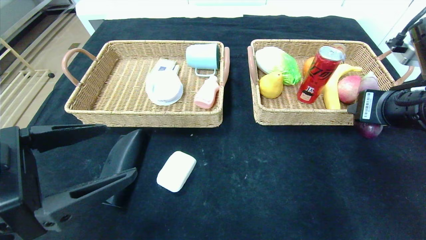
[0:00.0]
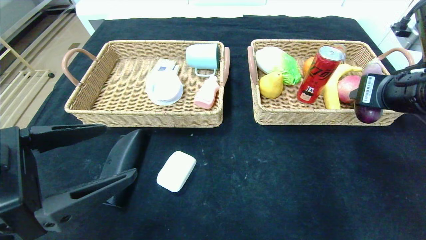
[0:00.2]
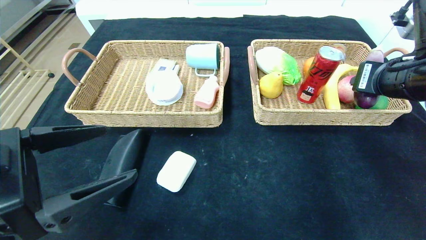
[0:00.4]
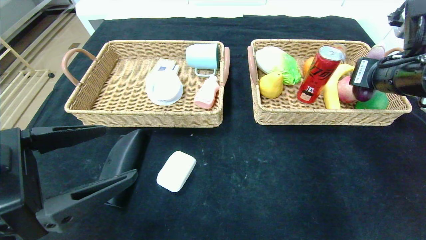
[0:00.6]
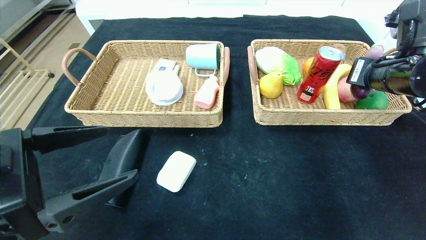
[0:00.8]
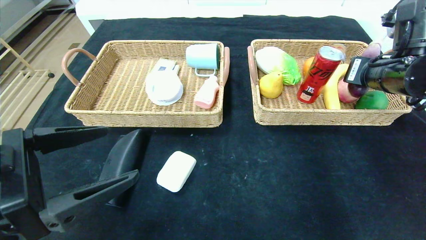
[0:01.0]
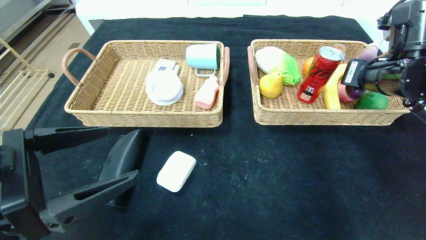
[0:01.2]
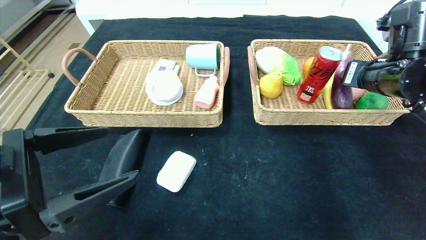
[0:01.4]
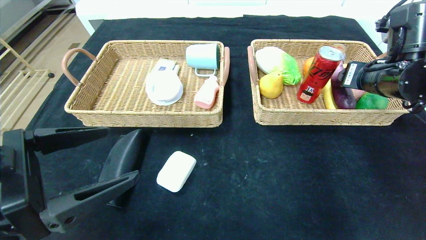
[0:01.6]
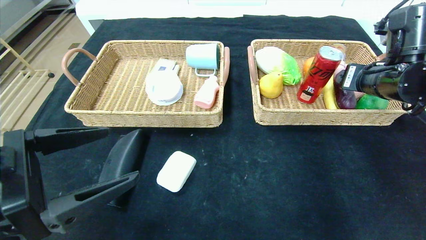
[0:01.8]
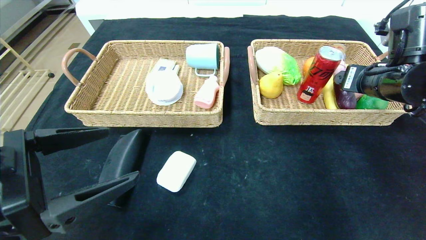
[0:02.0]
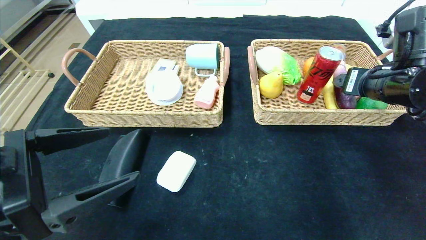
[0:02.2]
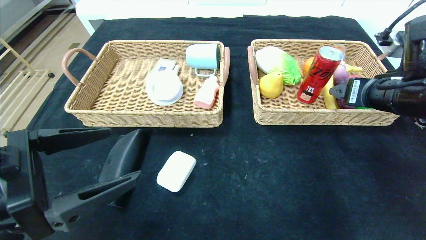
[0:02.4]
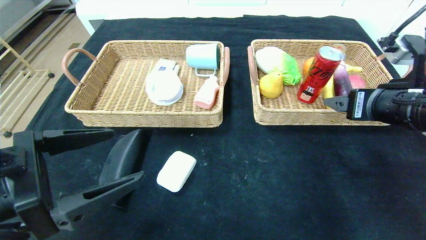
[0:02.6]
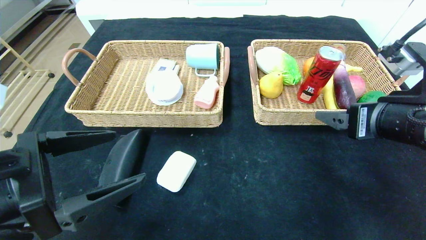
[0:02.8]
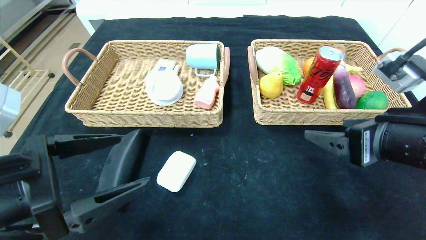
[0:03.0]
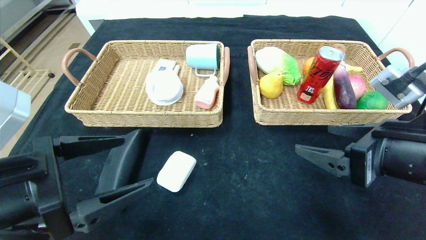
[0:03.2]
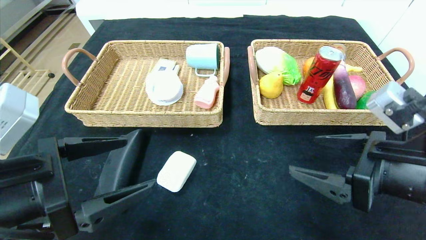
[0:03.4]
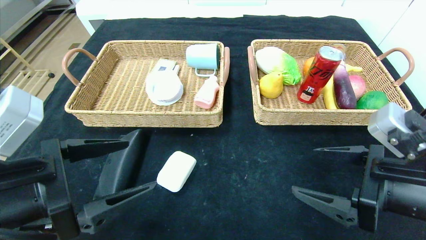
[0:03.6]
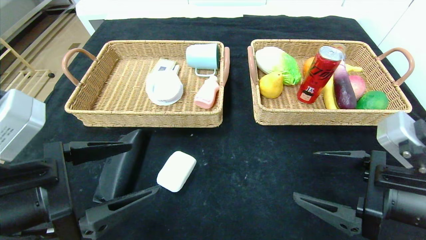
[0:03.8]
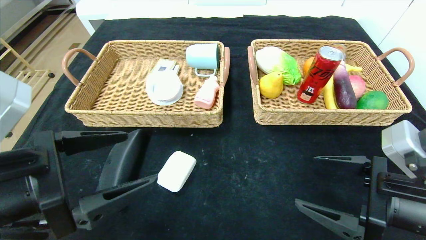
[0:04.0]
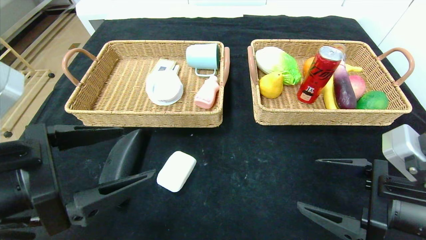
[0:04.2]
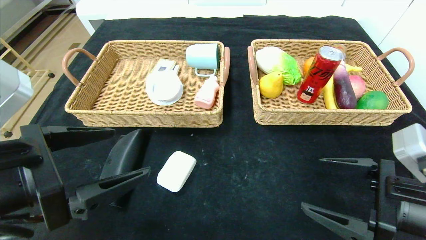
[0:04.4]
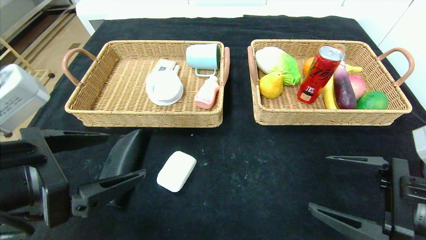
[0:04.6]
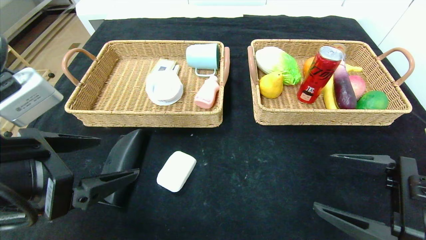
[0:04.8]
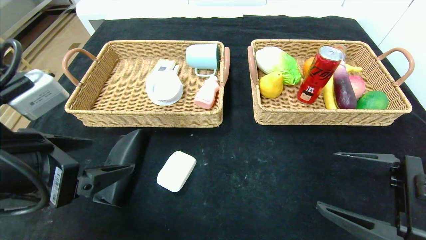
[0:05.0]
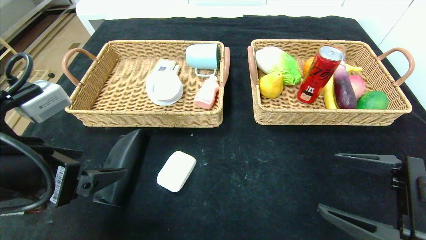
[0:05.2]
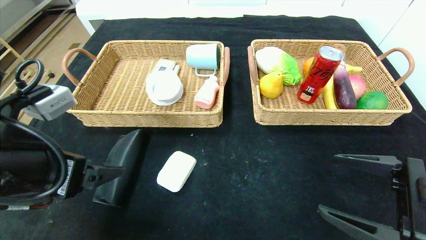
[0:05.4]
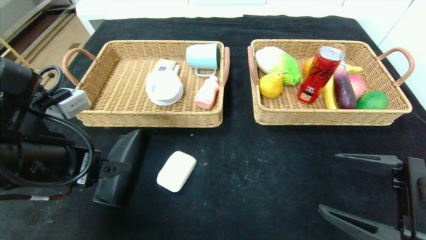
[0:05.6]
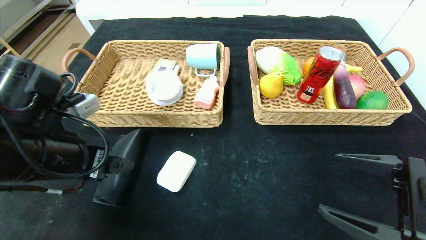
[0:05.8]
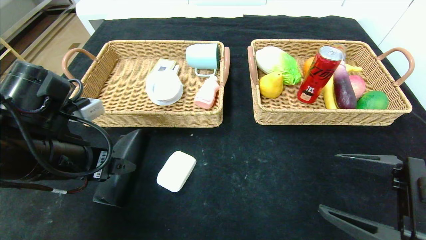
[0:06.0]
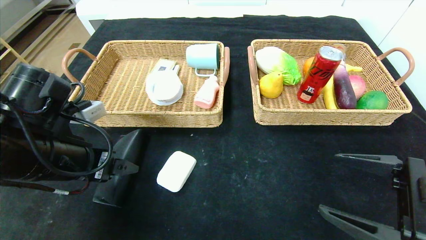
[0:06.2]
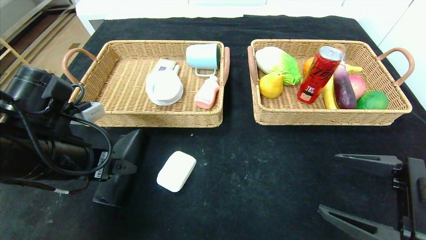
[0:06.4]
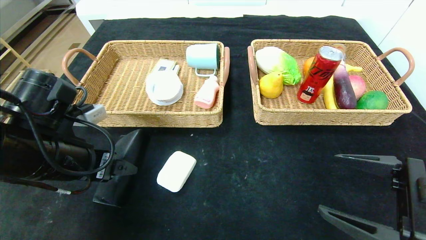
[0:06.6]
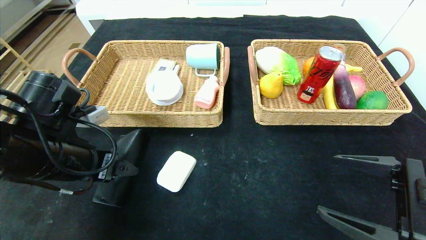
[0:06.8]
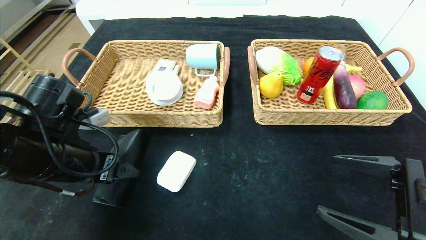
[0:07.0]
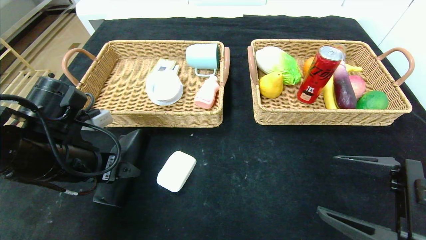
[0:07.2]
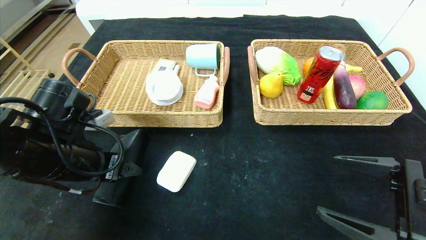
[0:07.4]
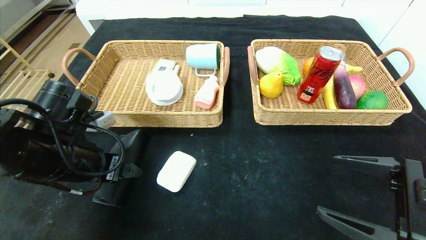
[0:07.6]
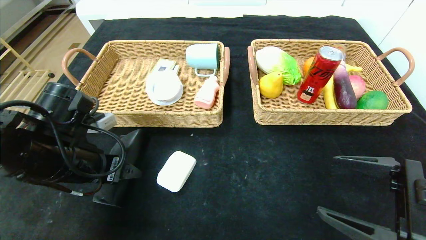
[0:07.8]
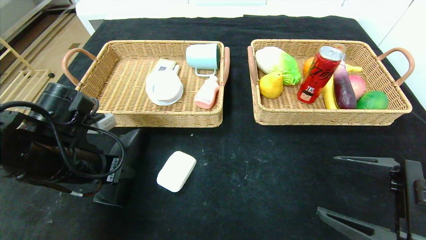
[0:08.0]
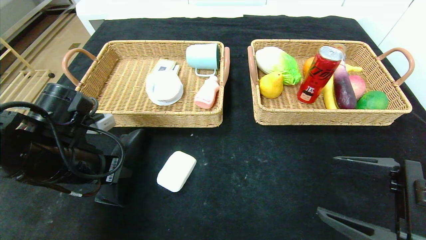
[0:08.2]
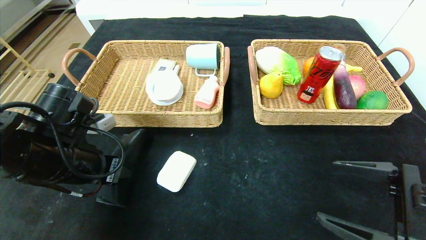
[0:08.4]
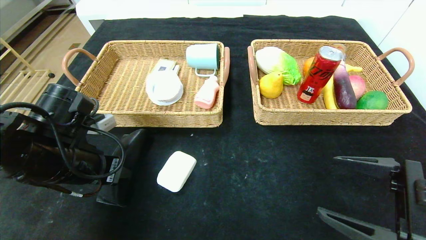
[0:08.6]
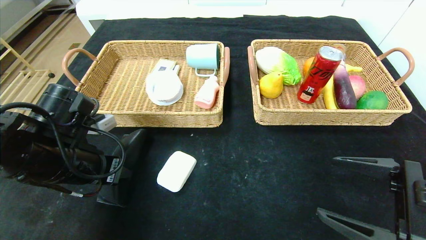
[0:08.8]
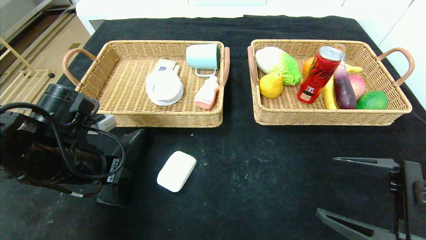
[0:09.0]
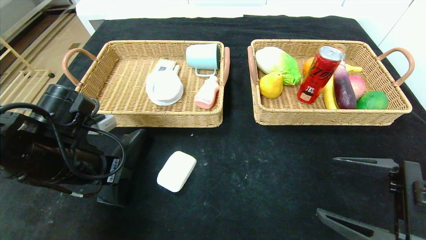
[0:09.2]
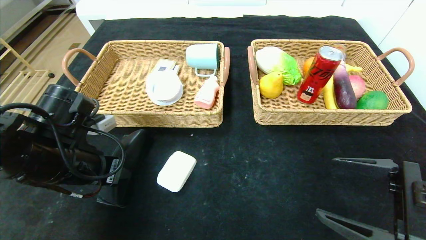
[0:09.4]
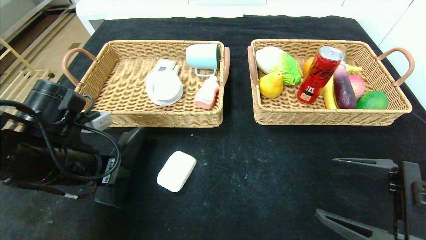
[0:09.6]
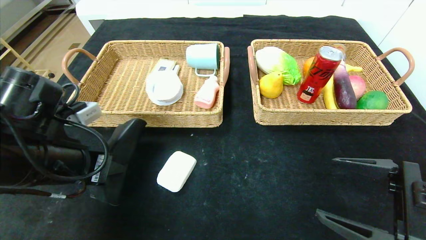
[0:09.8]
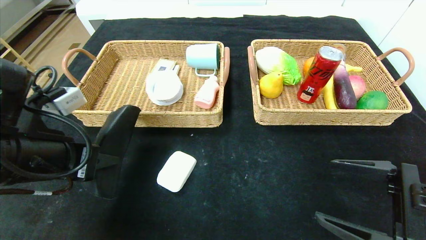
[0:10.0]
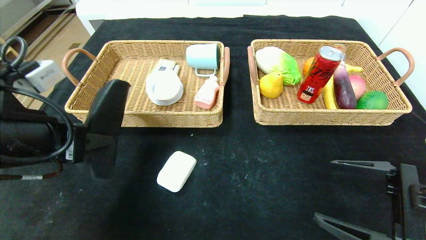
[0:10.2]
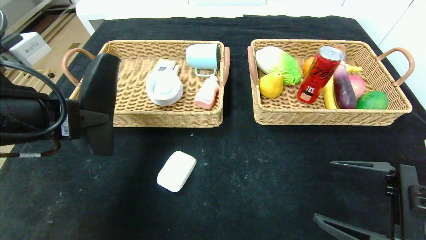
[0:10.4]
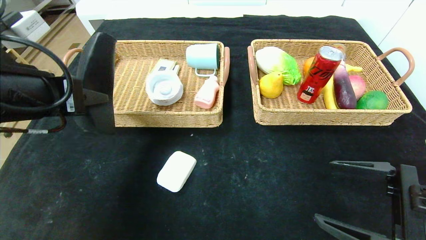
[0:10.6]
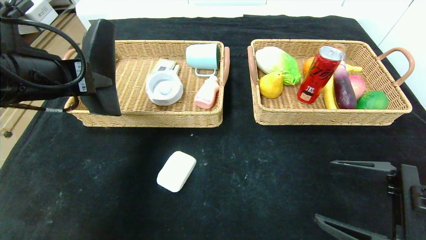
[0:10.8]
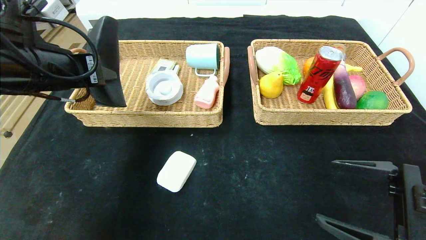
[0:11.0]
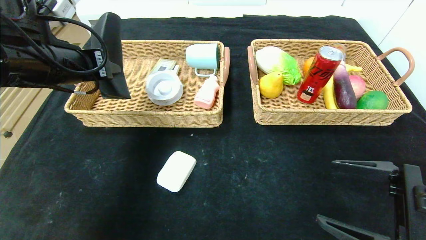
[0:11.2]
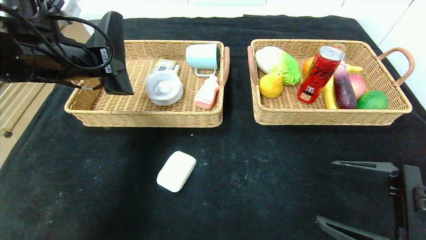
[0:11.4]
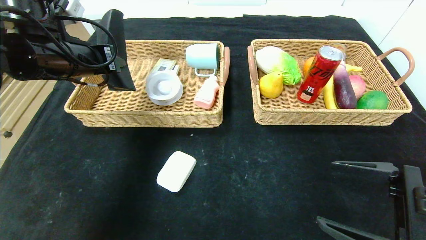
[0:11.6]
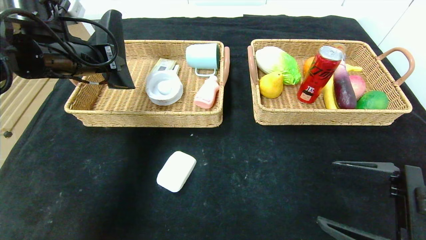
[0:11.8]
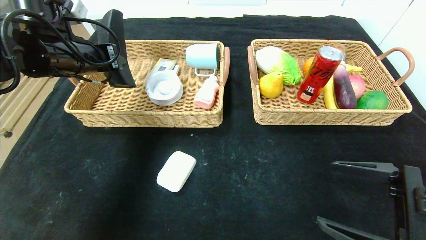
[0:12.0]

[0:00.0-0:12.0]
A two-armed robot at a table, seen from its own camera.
0.0 to 1.6 s: The right gripper goes some 10 cm forward, and opens up.
1.6 to 3.0 s: The right gripper shifts about 15 cm backward.
3.0 to 4.4 s: The right gripper is displaced downward by approximately 5 cm.
4.4 to 6.0 s: The left gripper travels forward by approximately 10 cm.
6.0 to 7.6 s: There are only small adjustments of the grippers.
7.6 to 9.0 s: The left gripper closes up.
9.0 to 10.4 s: The left gripper shifts approximately 10 cm upward.
10.4 to 12.0 s: The left gripper travels forward by approximately 15 cm.

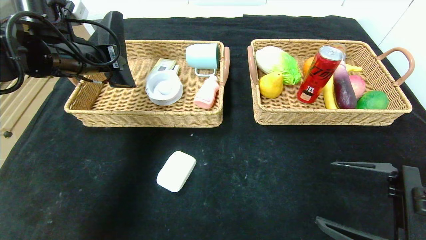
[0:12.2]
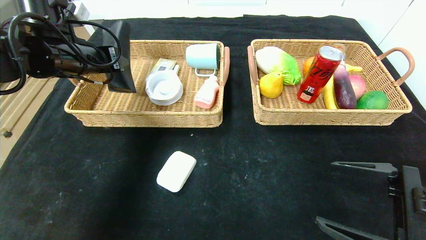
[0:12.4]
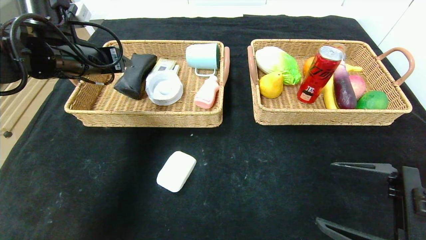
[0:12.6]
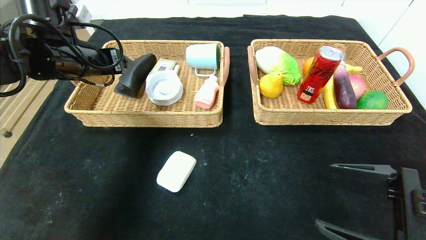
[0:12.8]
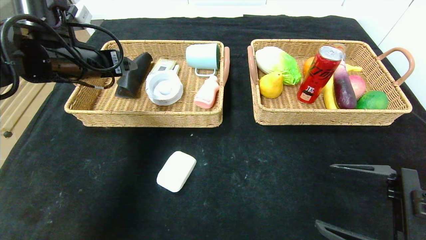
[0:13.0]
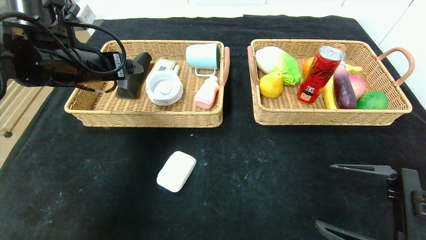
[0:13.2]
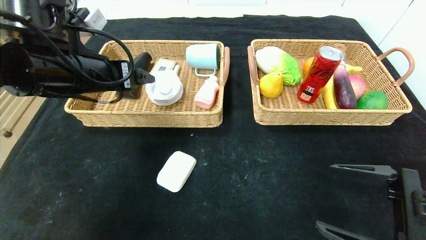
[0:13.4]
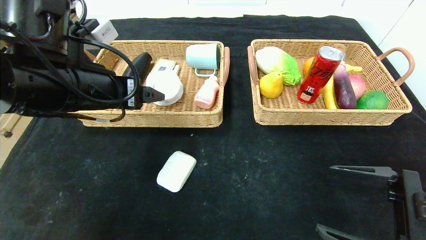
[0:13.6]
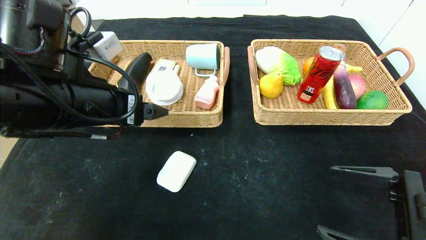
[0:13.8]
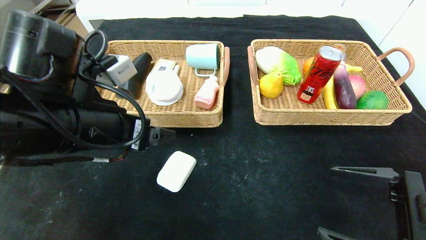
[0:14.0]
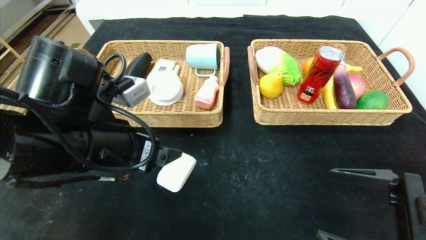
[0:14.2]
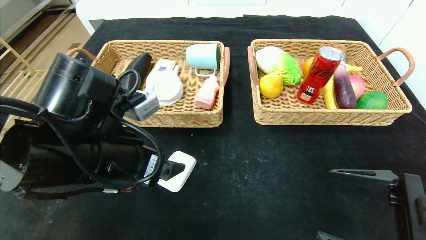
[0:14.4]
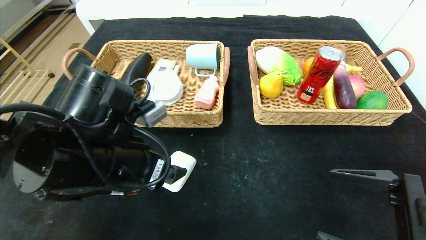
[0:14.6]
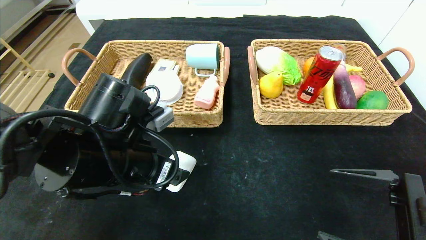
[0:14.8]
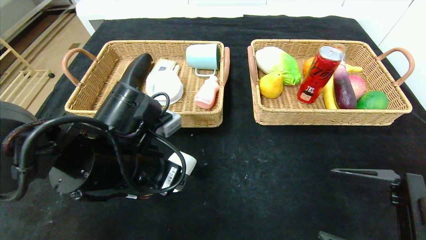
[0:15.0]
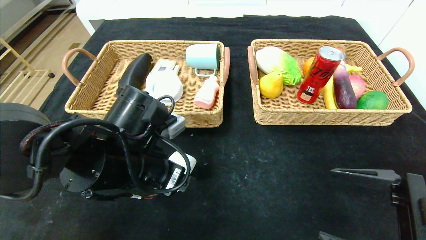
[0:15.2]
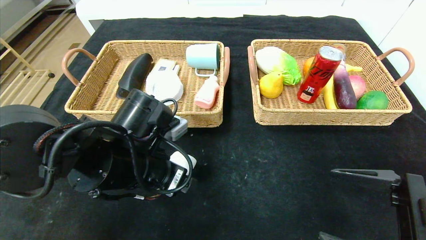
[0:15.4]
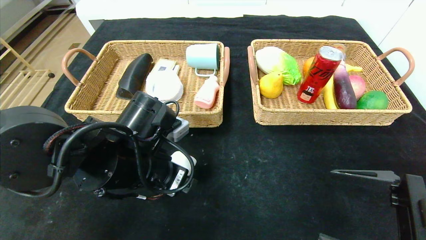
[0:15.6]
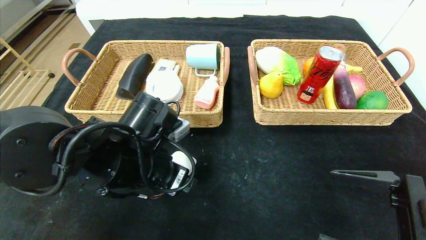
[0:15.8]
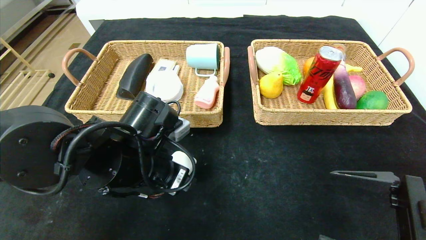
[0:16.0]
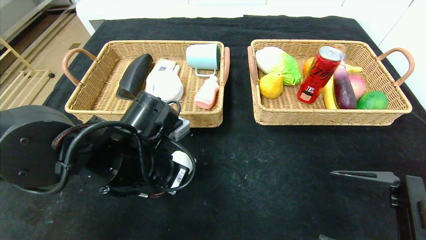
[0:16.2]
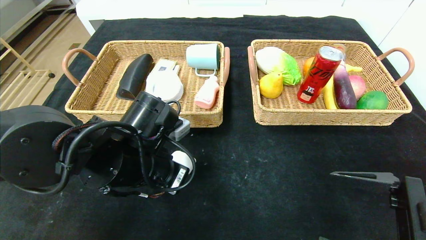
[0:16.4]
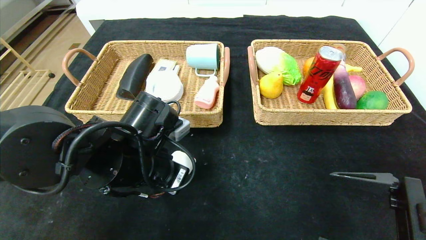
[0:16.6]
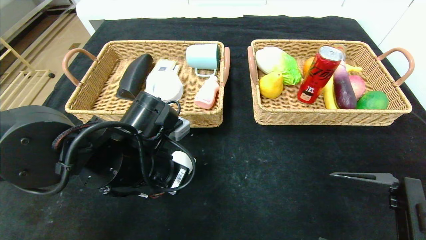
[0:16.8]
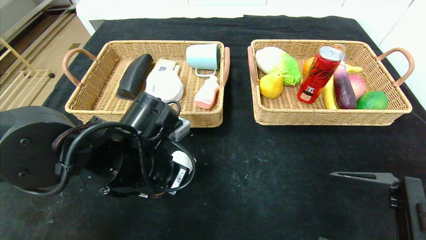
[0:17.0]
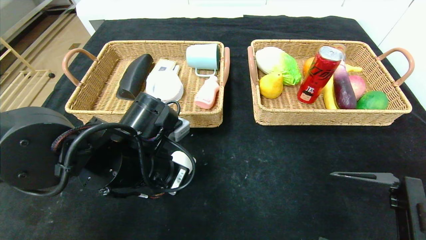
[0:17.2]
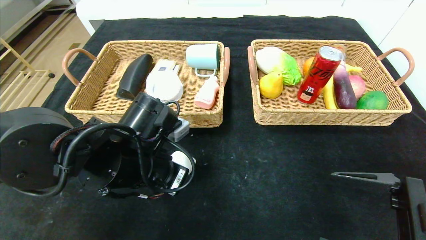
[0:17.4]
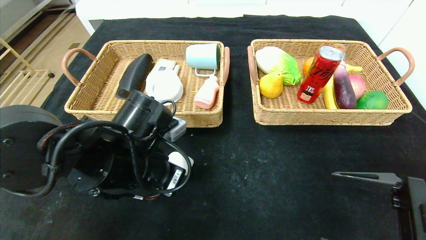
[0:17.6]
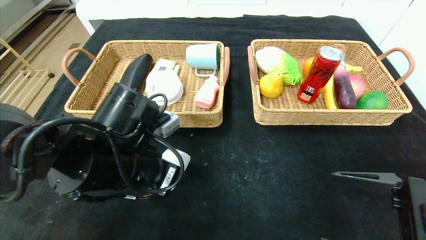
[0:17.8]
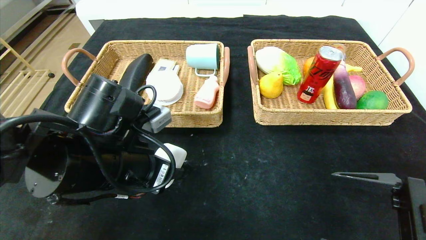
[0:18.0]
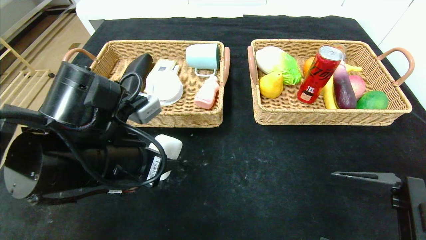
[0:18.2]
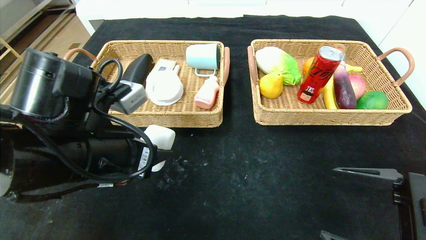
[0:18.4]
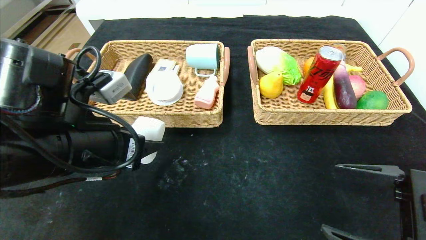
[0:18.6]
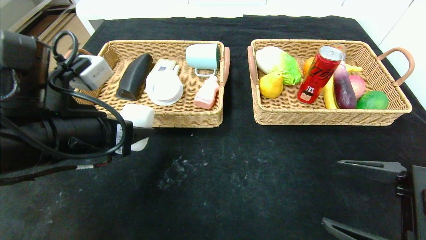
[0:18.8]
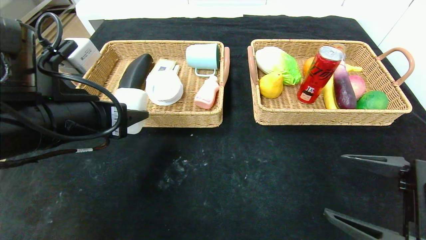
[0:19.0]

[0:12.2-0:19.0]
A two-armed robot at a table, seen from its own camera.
12.2 to 13.6 s: The left gripper moves backward and to the right, some 10 cm, and opens its fingers.
13.6 to 15.0 s: The left gripper is displaced downward and to the right by roughly 10 cm.
15.0 to 16.2 s: The left gripper closes its fingers.
16.2 to 17.6 s: Both grippers stay about where they are.
17.6 to 19.0 s: The left gripper moves upward and to the left, roughly 10 cm.
